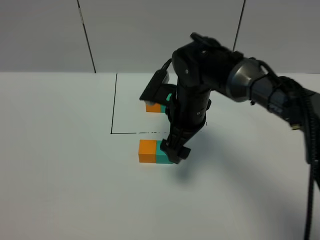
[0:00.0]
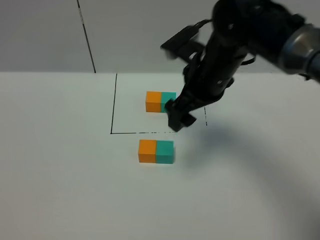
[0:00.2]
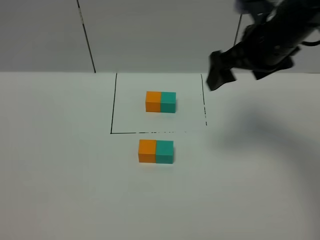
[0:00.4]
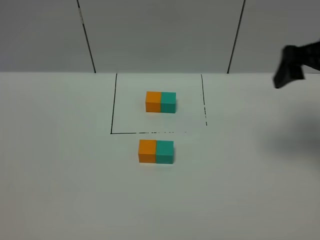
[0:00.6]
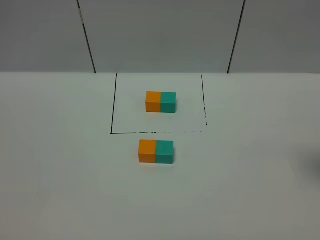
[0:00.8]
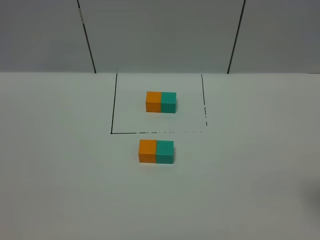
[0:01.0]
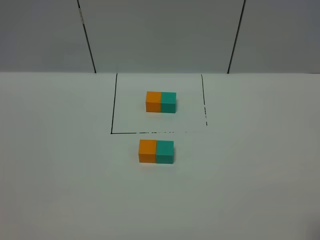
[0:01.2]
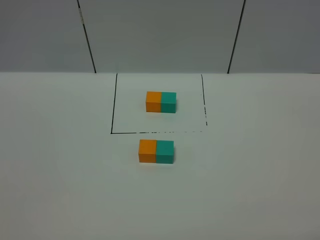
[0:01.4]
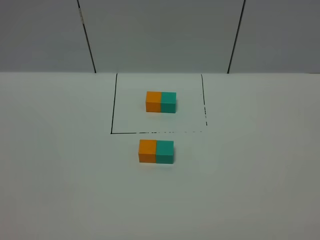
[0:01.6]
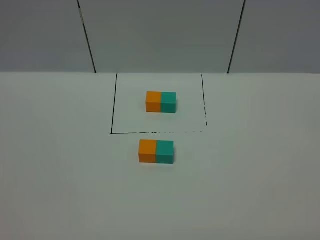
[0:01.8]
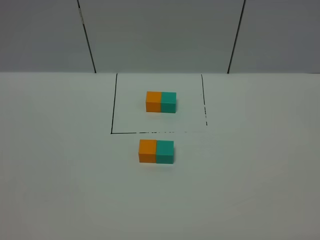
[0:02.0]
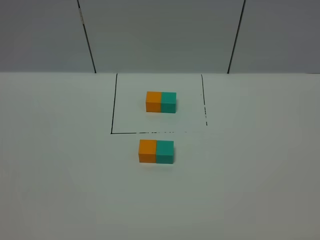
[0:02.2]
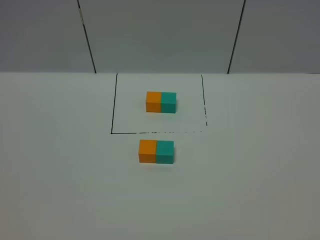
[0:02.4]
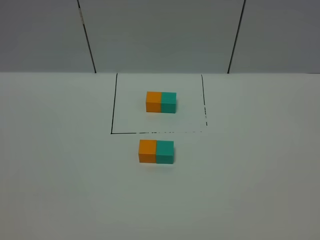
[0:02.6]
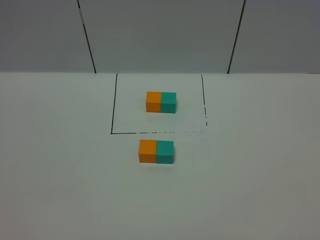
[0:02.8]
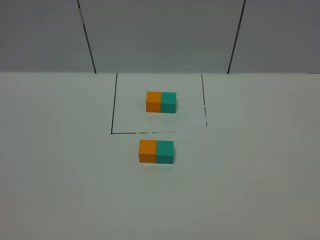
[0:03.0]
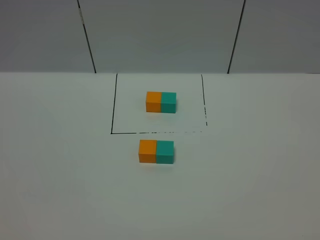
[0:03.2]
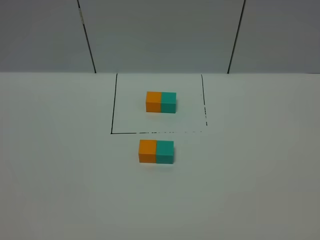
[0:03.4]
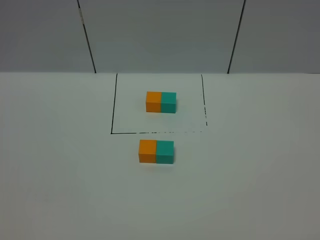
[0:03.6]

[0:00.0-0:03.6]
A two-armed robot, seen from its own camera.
Task of the whole recording: According to the building block template in front, assemble the scattered blocks together.
0:00.0 to 0:01.8: The right gripper goes approximately 40 cm backward and to the right.

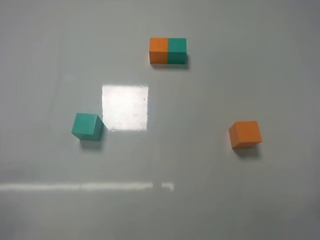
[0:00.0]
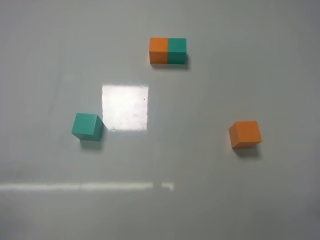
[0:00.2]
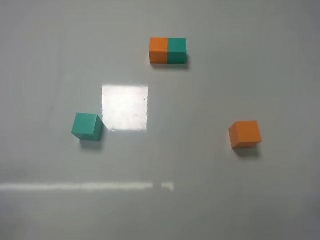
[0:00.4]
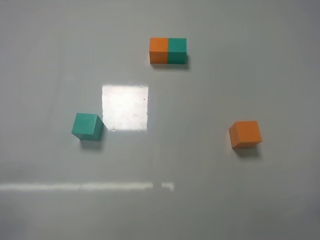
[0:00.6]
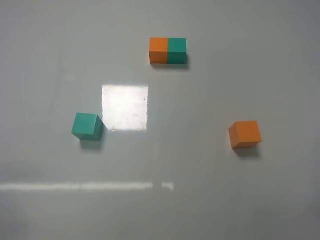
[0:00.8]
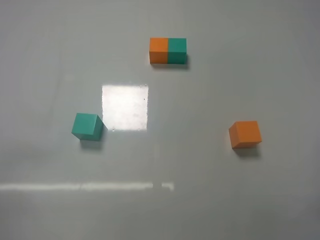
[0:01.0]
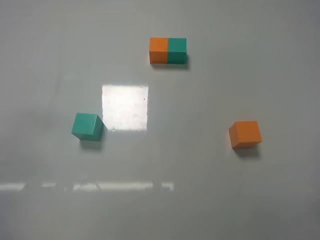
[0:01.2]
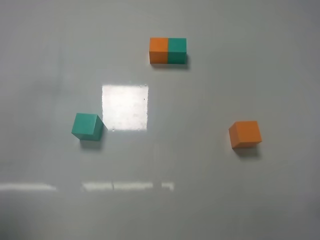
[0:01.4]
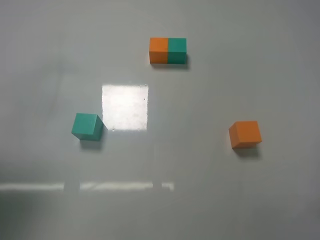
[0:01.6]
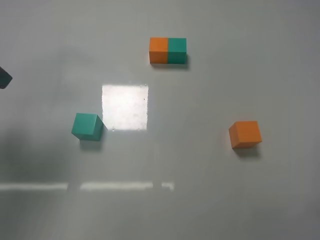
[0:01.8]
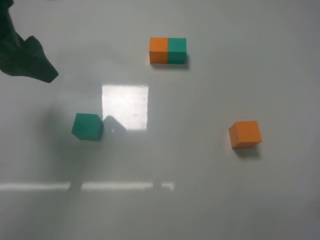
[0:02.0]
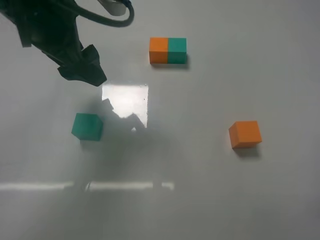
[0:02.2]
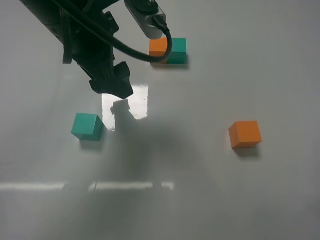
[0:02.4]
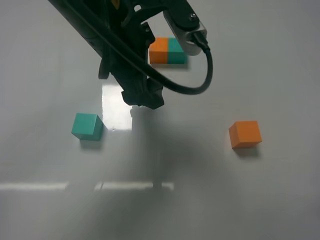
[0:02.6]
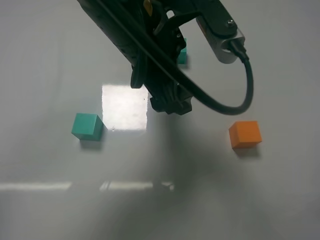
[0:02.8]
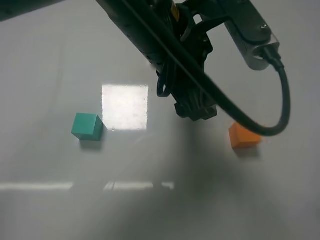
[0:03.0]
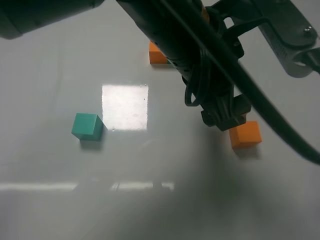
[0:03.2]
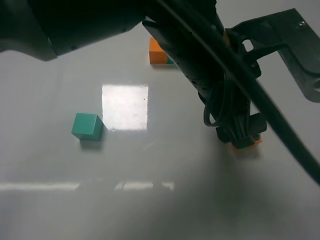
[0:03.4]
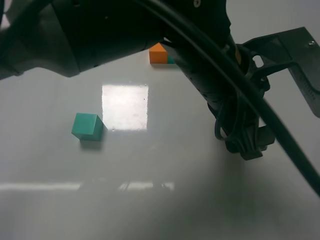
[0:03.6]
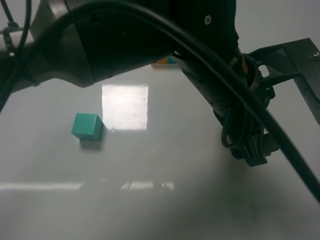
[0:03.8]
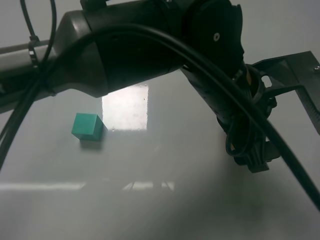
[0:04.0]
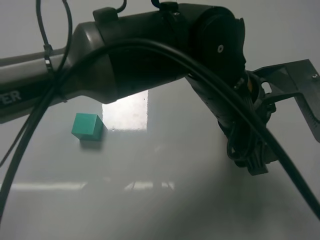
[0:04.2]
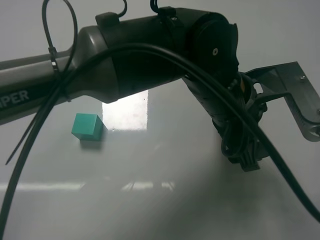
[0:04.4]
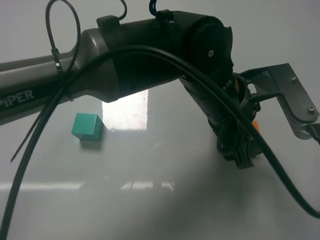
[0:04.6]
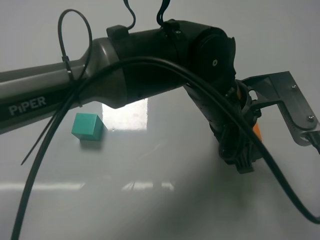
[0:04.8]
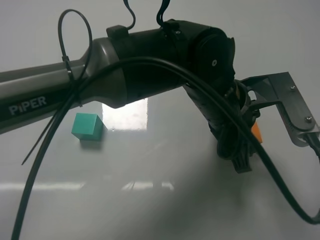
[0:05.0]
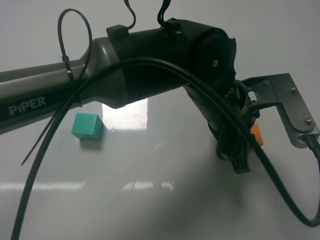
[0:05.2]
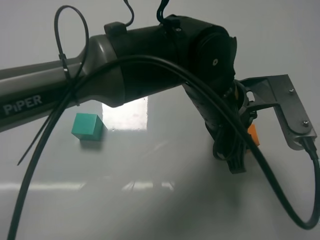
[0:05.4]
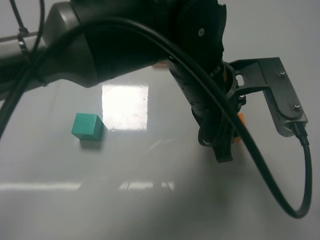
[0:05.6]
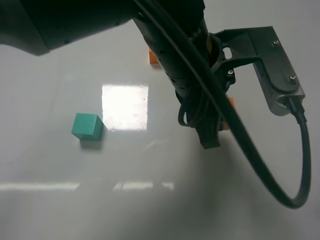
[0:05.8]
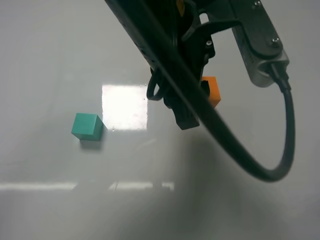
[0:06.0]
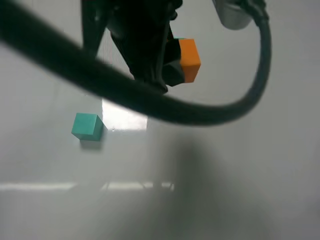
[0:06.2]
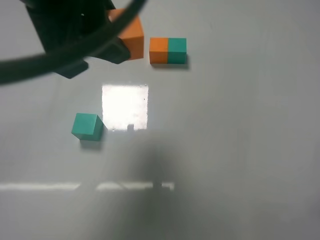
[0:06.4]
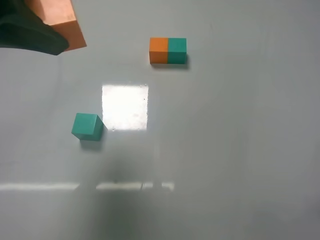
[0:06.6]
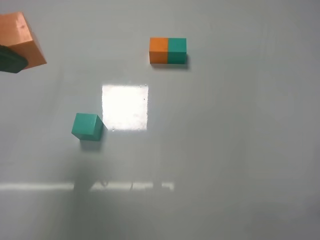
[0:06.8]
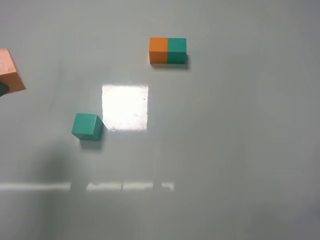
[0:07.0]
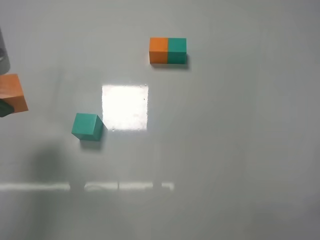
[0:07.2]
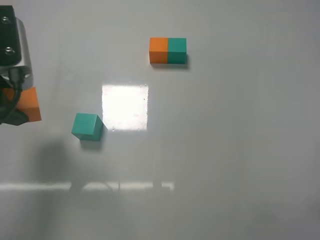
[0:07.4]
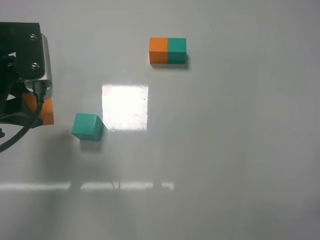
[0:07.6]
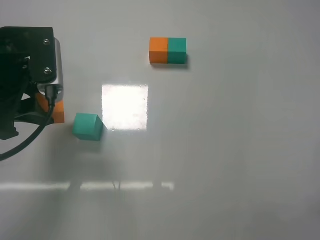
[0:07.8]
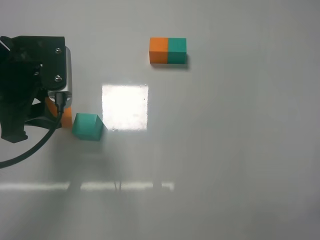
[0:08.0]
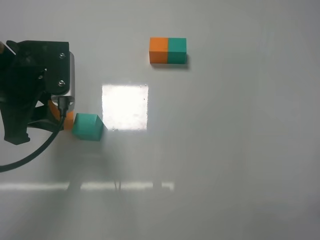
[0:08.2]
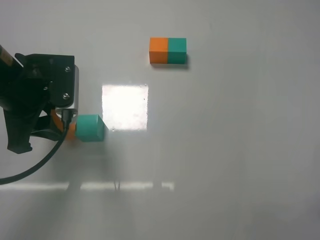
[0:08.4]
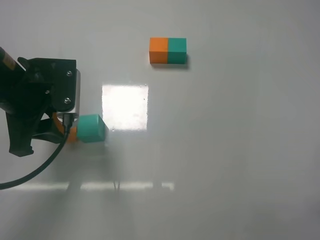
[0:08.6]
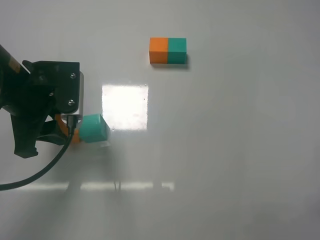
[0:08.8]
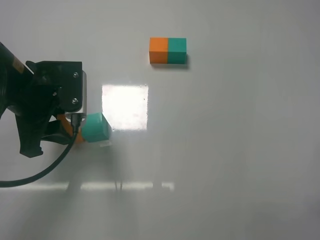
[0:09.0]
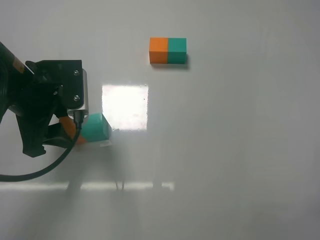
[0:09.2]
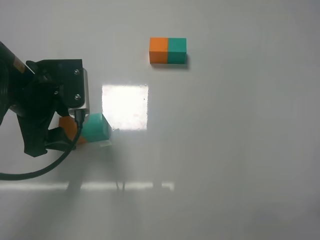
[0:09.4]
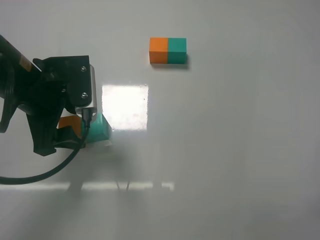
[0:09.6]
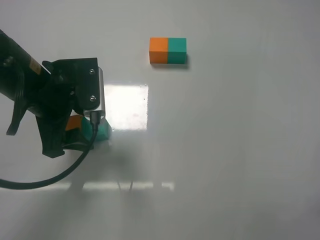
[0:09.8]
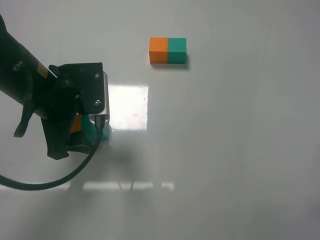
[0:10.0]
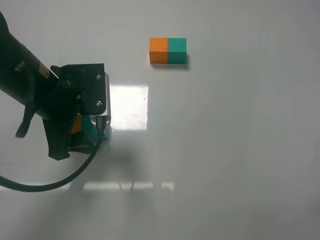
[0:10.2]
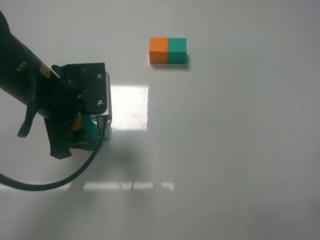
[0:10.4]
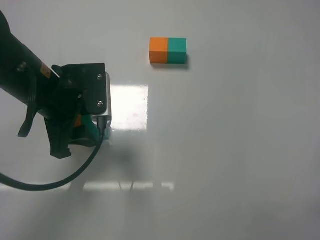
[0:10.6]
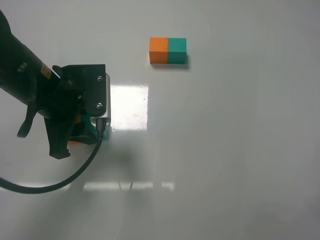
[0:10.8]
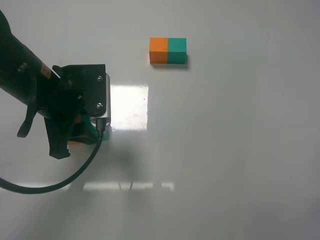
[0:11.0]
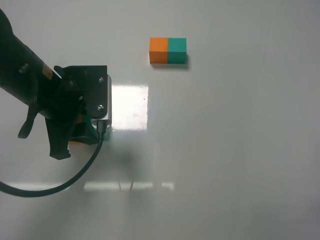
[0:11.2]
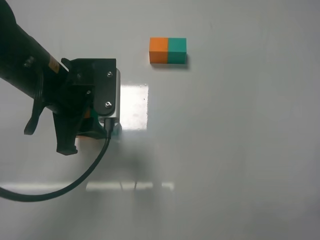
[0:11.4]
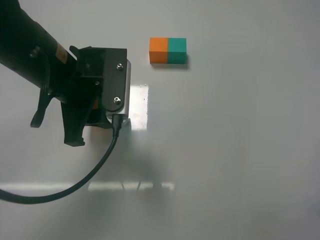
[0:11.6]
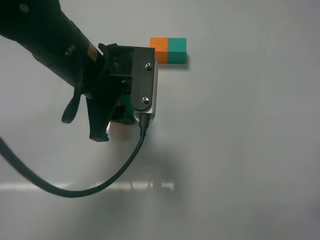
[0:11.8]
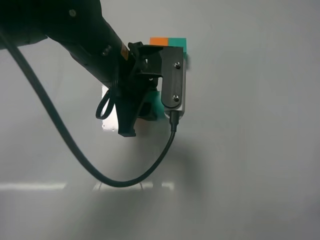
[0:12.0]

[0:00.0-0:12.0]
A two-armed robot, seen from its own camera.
Task of the whole recording: According to the building block template in front, assemble the scattered blocks together.
Step, 0:00.0 to 0:05.2: Grasp the orange block with left gripper.
Step, 0:05.4 to 0:09.2: Put the orange cube on the left of the green cube with the left gripper.
0:00.0 to 0:01.6: The left gripper shifts approximately 25 cm upward and forward.
0:01.6 to 0:03.0: The left gripper travels to the right by approximately 30 cm.
0:03.0 to 0:04.4: The left gripper goes about 10 cm to the right and downward.
0:04.4 to 0:06.0: The left gripper shifts some 15 cm upward and to the left, and closes.
0:06.0 to 0:07.6: The left gripper goes roughly 20 cm to the left.
0:07.6 to 0:09.0: The left gripper shifts by some 5 cm.
0:09.0 to 0:10.4: The left gripper opens.
0:10.4 to 0:12.0: The left gripper shifts roughly 10 cm to the right, and closes its fingers.

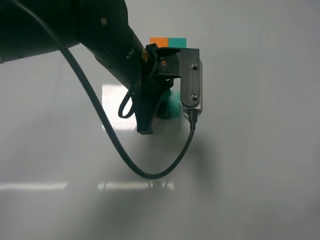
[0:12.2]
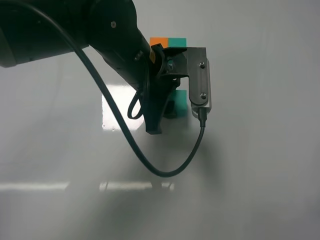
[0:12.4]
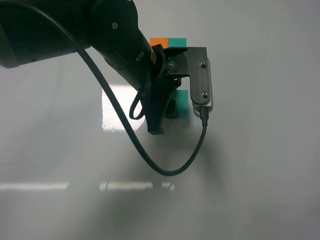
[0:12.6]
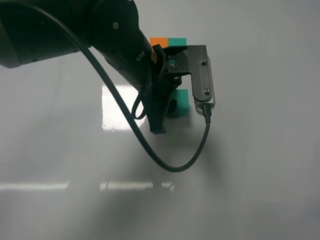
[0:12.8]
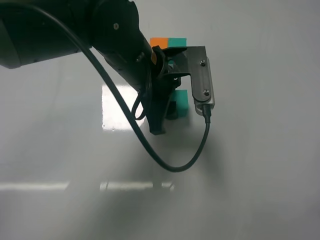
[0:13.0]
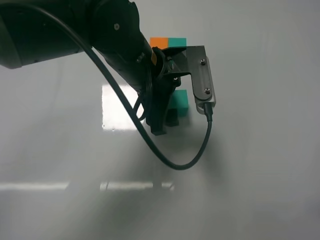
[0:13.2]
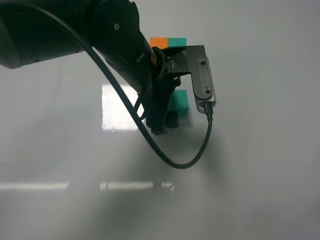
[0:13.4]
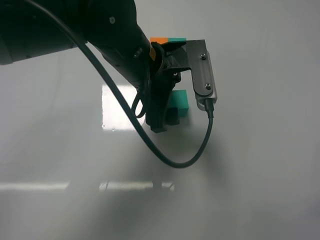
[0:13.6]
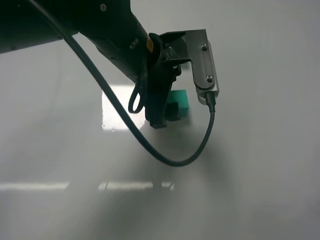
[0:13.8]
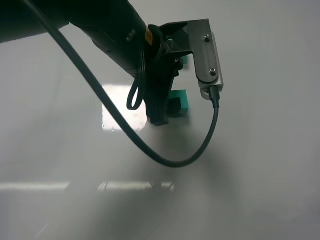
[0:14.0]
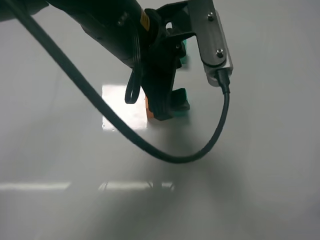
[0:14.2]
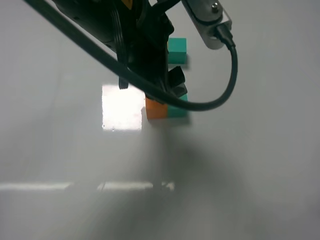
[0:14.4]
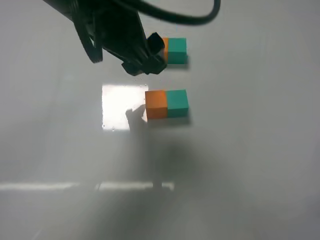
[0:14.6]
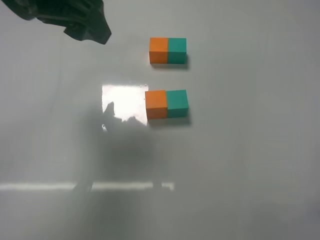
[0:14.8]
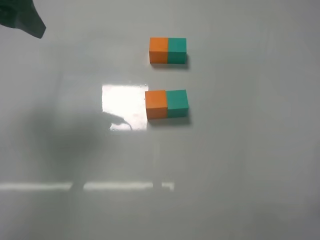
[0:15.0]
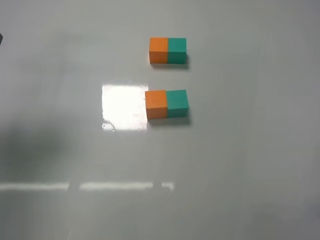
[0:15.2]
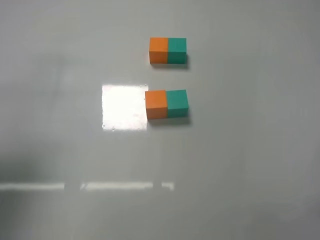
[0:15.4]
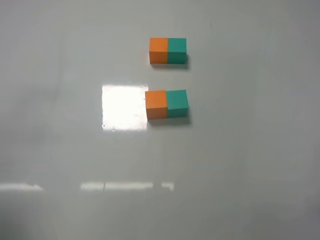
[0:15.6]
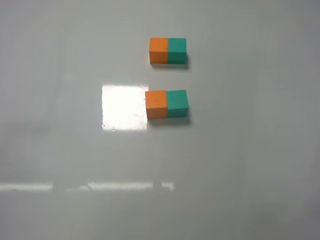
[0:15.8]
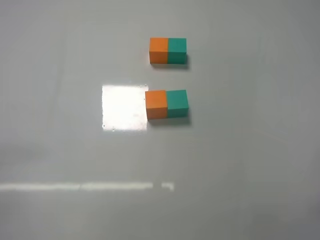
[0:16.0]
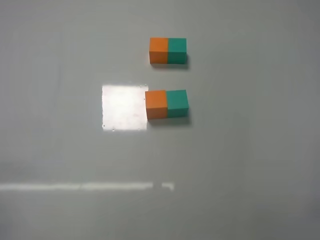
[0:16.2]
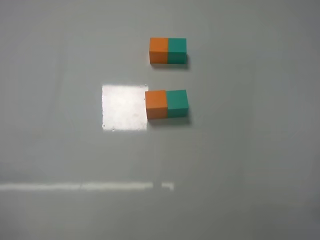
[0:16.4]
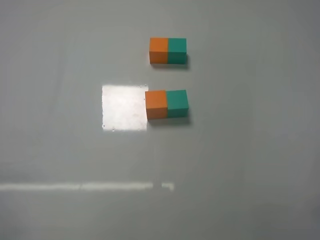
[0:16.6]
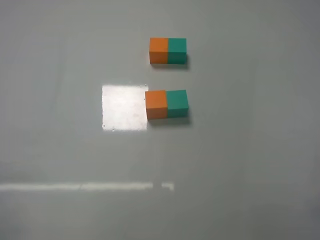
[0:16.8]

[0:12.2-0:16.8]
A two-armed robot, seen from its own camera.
Task of the whole recording: According to the building block template in front, assemble the scattered blocks together.
0:12.2 to 0:13.8: The left gripper opens its fingers.
0:13.8 to 0:15.2: The left gripper travels to the left and upward by about 30 cm.
0:15.2 to 0:16.8: The left gripper is displaced downward and backward by roughly 30 cm.

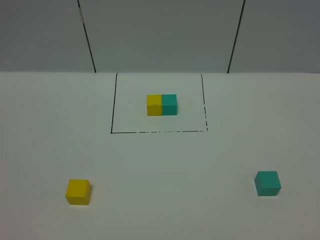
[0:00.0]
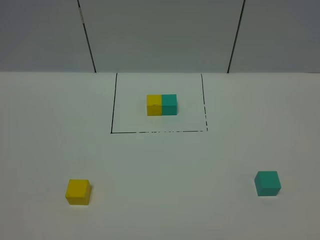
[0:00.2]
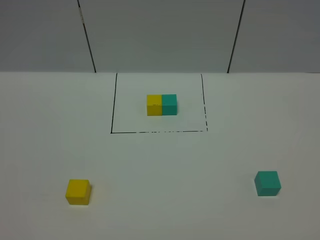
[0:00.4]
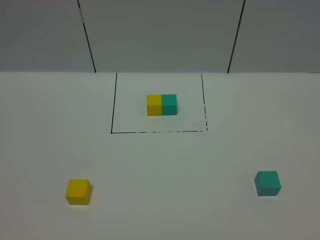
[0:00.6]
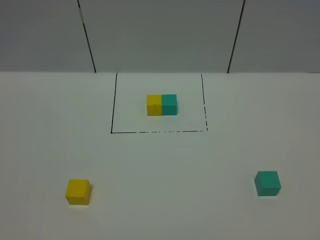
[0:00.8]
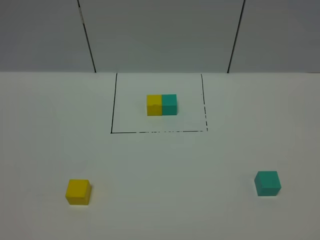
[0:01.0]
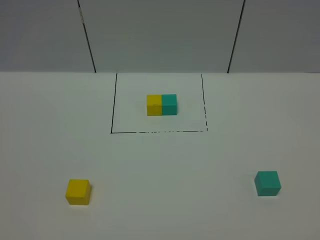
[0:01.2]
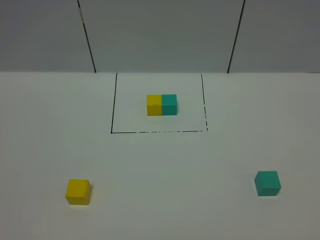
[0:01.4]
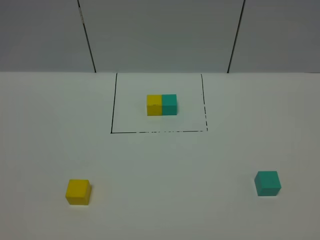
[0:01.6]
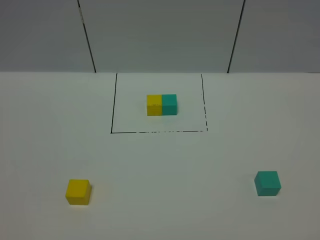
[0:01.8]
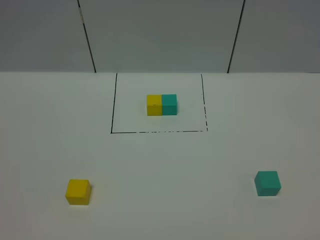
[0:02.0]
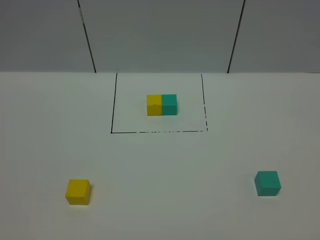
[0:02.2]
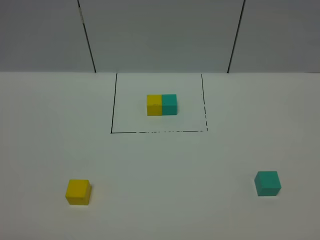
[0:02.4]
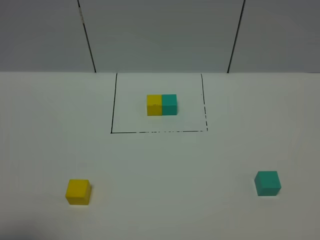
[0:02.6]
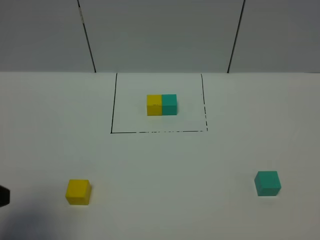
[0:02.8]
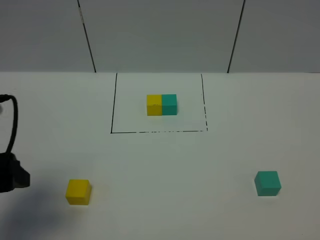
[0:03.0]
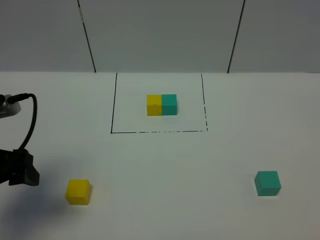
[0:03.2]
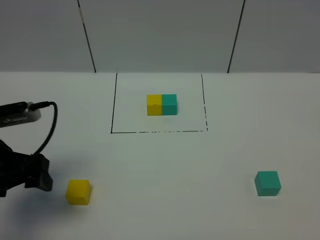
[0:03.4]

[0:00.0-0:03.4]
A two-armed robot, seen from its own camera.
Task of the whole recording: According to the building block template in front, assemble the scattered blocks together.
0:00.0 to 0:01.6: Neither gripper changes place.
0:01.6 to 0:03.4: The left gripper heads forward, covering about 25 cm.
